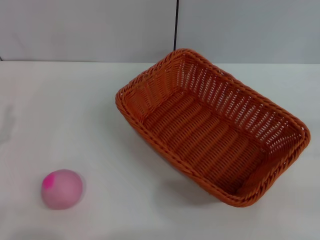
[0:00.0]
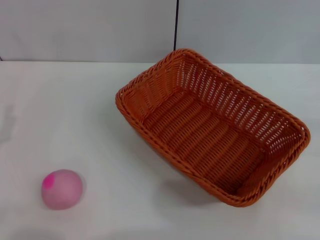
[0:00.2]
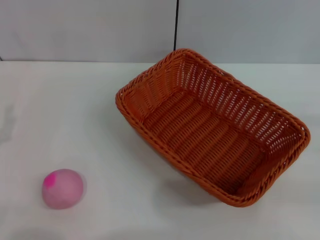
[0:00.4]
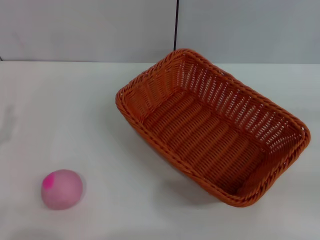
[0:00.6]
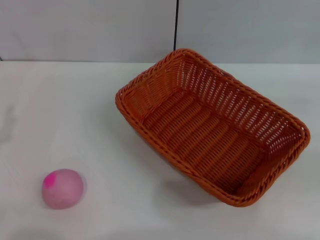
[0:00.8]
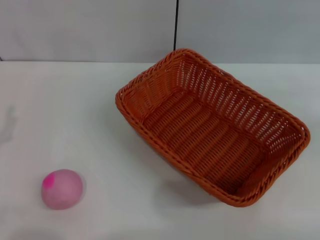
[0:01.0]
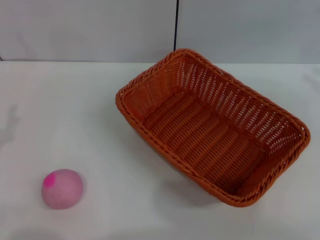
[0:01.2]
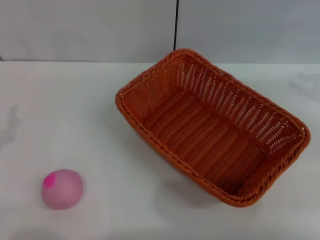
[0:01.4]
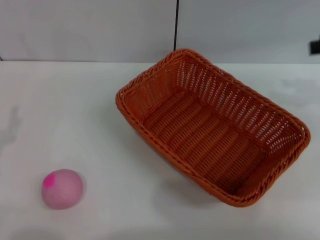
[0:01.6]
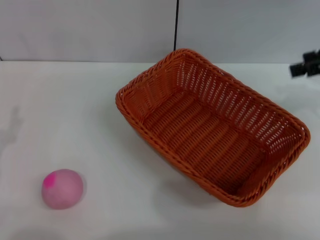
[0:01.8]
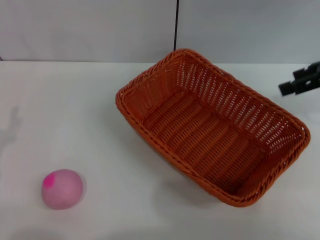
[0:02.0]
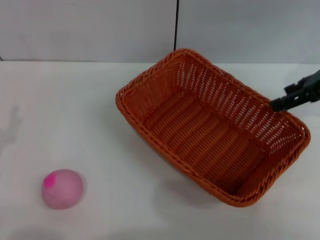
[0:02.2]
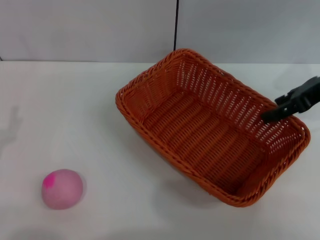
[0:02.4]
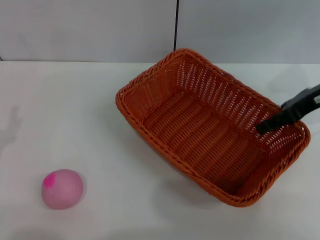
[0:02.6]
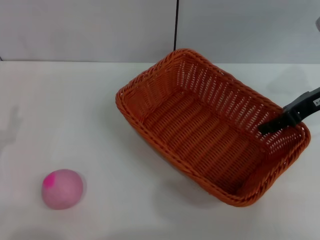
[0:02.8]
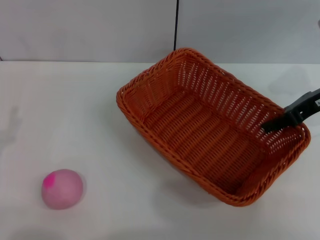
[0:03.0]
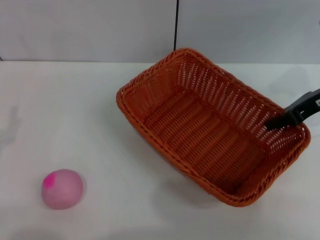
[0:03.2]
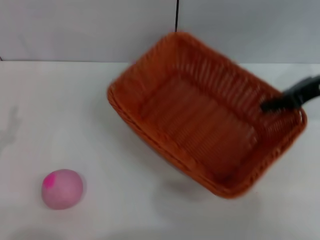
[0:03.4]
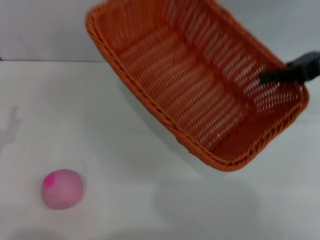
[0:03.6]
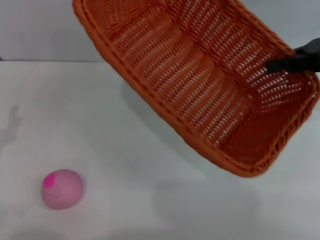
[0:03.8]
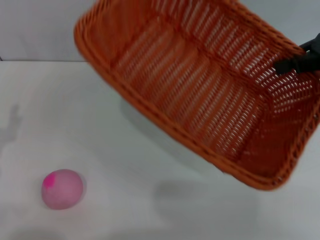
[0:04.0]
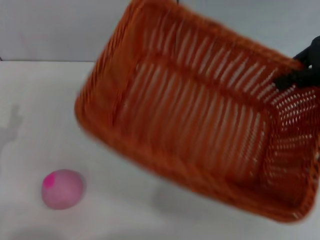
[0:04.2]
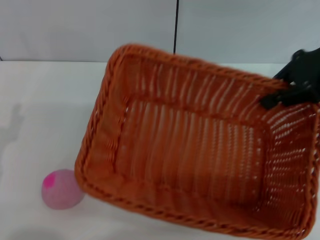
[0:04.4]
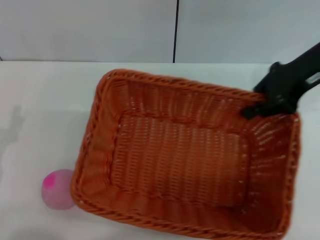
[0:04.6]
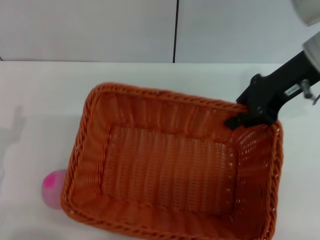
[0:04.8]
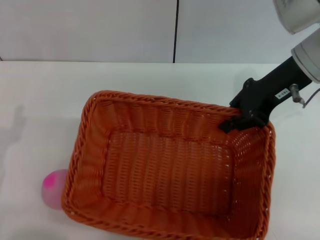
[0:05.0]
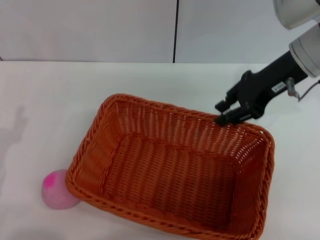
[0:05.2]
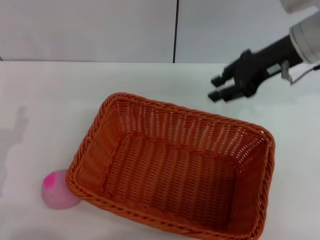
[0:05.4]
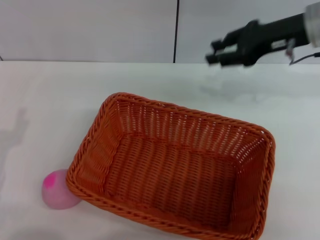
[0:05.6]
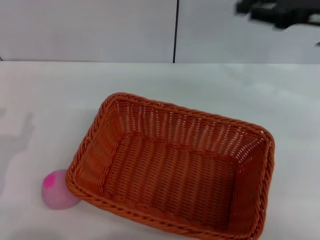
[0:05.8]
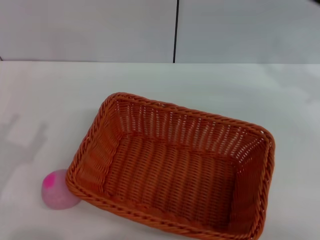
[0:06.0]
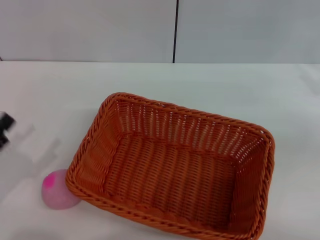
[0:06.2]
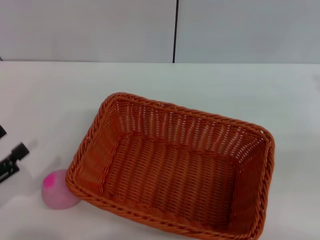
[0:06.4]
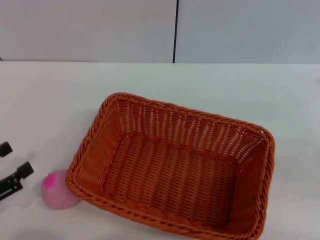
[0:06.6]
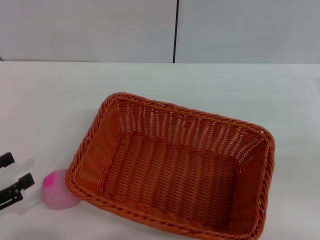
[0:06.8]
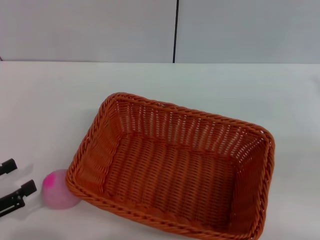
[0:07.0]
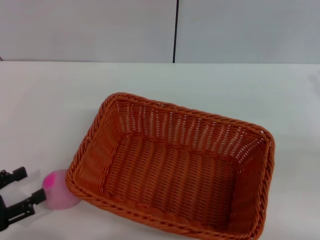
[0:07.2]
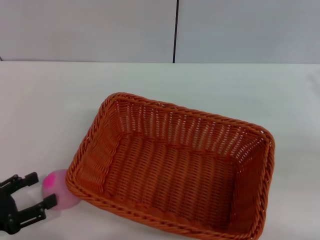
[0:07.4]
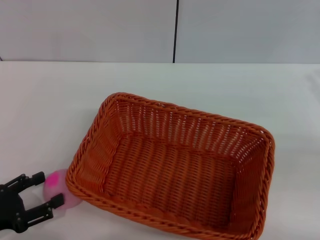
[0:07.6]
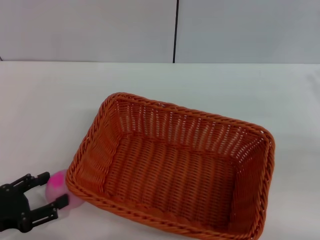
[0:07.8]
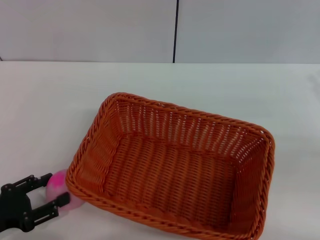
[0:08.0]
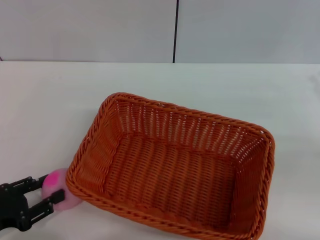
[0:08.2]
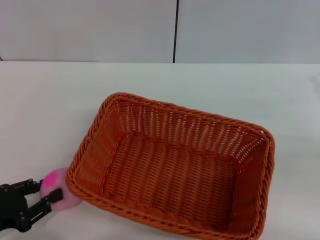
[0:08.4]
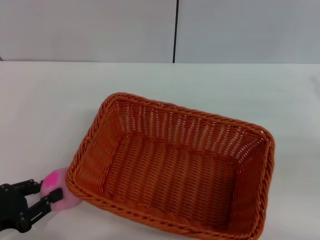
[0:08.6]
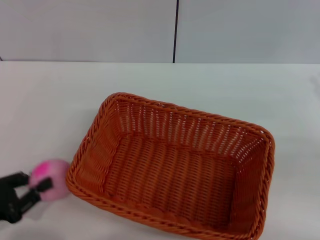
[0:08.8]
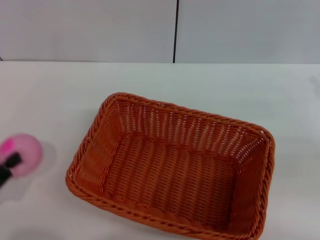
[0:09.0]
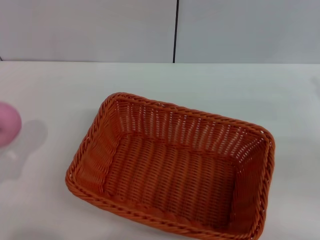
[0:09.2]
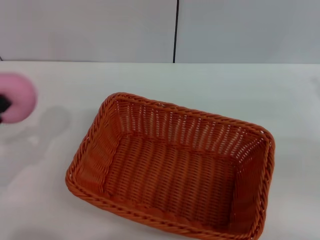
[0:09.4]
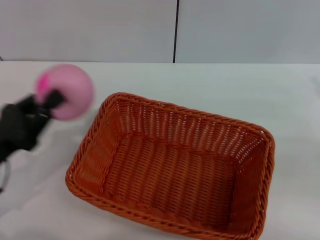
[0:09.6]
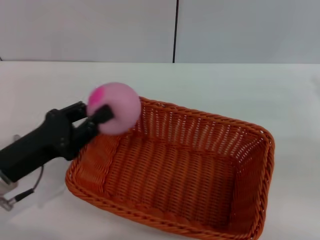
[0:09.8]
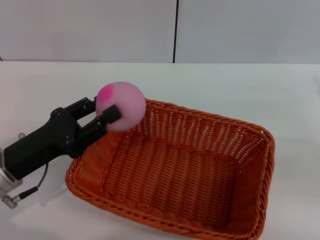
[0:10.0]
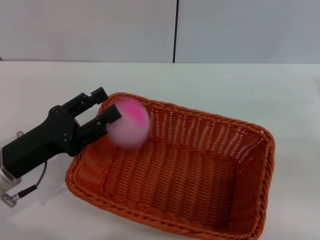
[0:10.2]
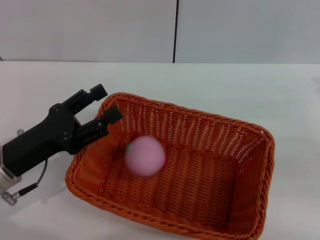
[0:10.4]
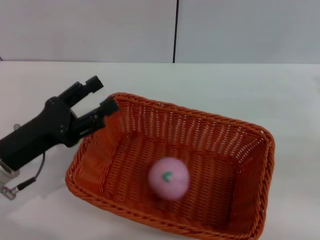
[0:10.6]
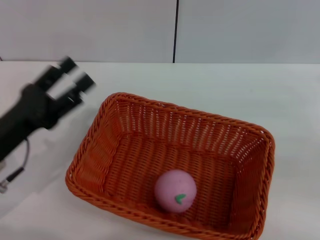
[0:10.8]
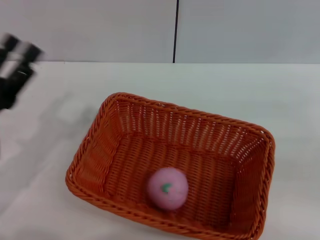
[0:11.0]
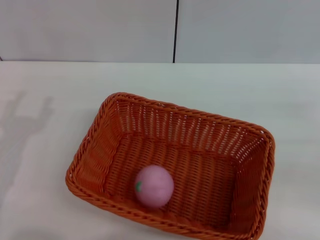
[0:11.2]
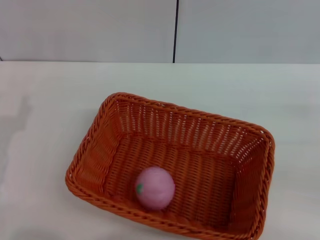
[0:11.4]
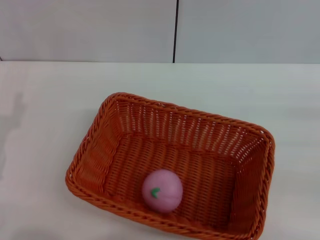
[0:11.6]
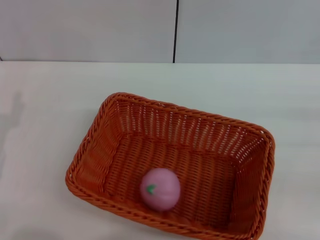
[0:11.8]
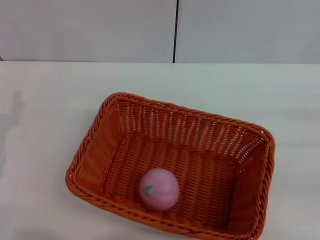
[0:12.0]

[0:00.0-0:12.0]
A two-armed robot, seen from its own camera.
Step, 0:00.0 to 0:04.0: Pick up the light basket with the right gripper.
Step, 0:04.2 to 0:05.2: Place the light basket in the center of view with the right gripper.
Step, 0:05.4 to 0:09.4: Pick up the peach with the left gripper.
Step, 0:09.6 to 0:10.6: Place the peach into the basket with the left gripper.
0:00.0 to 0:01.6: The right gripper heads upward, forward and to the left, covering approximately 25 cm.
0:01.6 to 0:03.0: The right gripper travels downward and to the left by some 10 cm.
0:03.0 to 0:04.4: The right gripper is displaced upward by roughly 10 cm, and closes.
0:04.4 to 0:06.0: The right gripper is displaced to the right and downward by roughly 10 cm, and opens.
0:07.6 to 0:09.0: The left gripper closes its fingers.
0:09.0 to 0:10.4: The left gripper moves to the right and forward, about 15 cm, and opens up.
0:10.4 to 0:12.0: The left gripper shifts about 5 cm to the left, and opens.

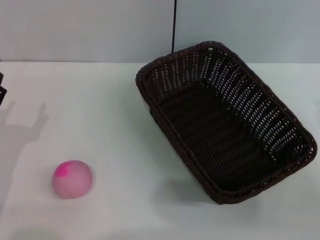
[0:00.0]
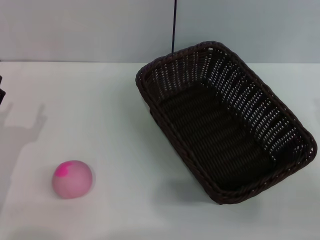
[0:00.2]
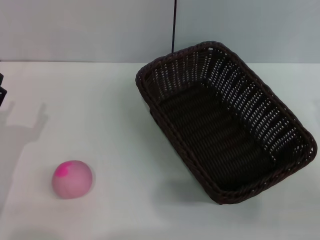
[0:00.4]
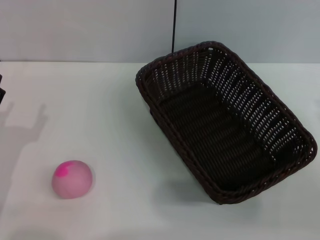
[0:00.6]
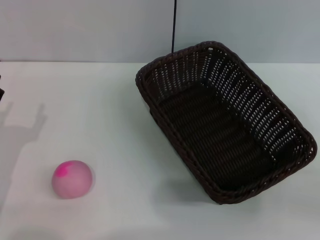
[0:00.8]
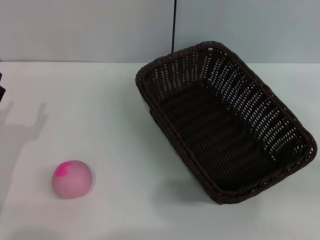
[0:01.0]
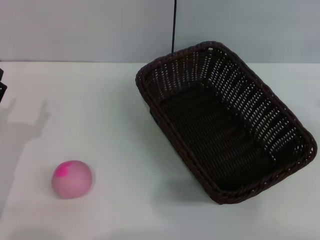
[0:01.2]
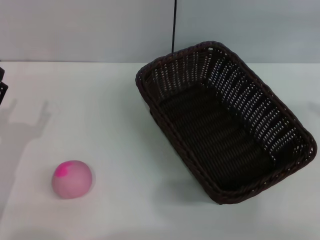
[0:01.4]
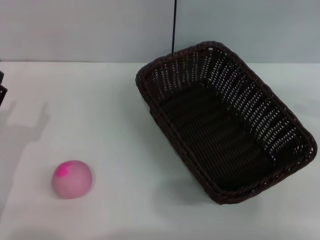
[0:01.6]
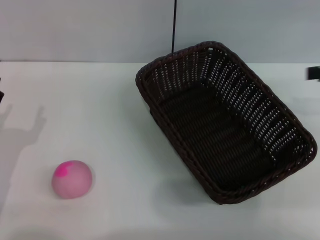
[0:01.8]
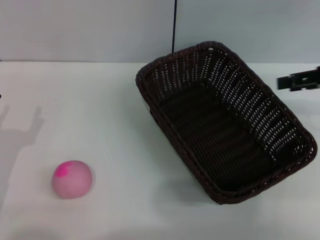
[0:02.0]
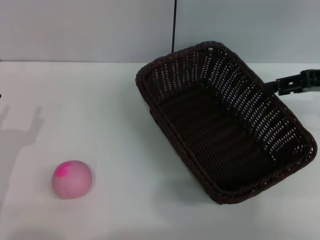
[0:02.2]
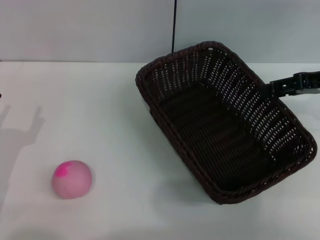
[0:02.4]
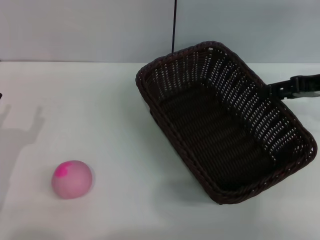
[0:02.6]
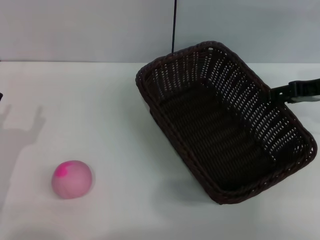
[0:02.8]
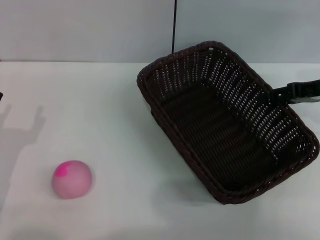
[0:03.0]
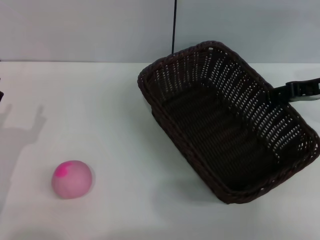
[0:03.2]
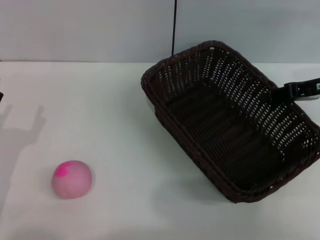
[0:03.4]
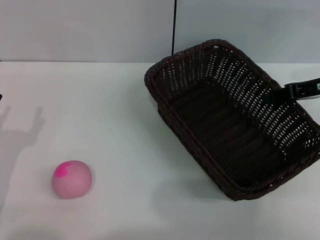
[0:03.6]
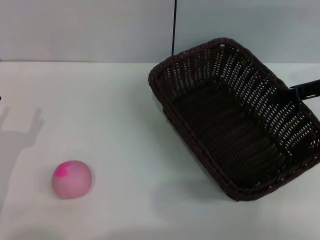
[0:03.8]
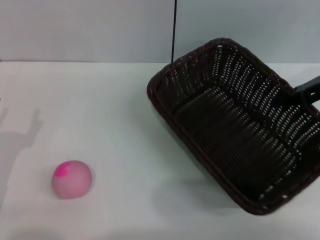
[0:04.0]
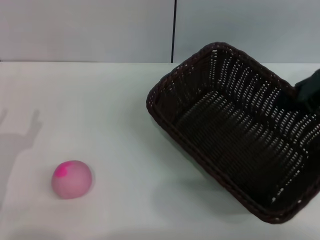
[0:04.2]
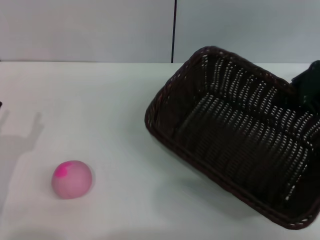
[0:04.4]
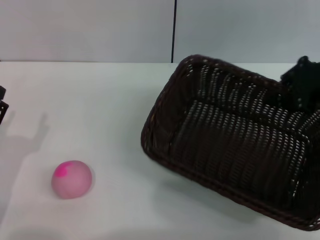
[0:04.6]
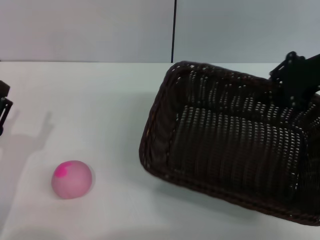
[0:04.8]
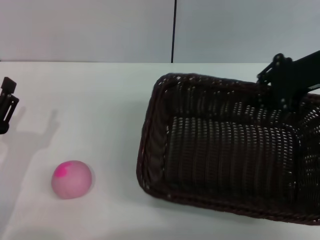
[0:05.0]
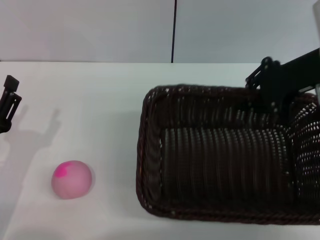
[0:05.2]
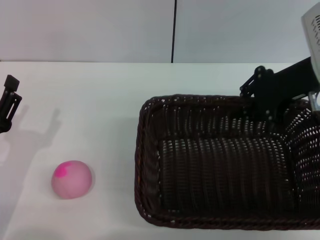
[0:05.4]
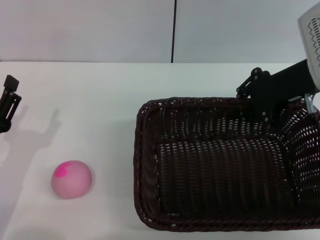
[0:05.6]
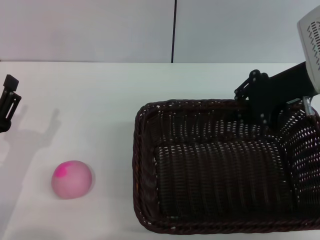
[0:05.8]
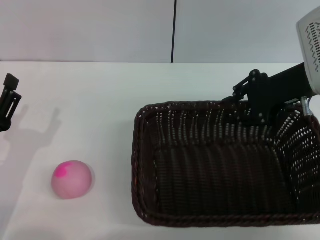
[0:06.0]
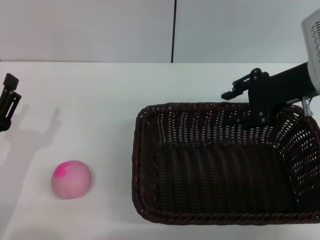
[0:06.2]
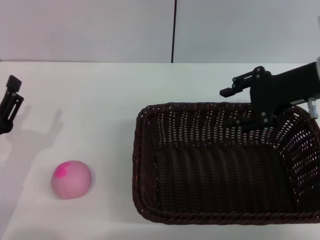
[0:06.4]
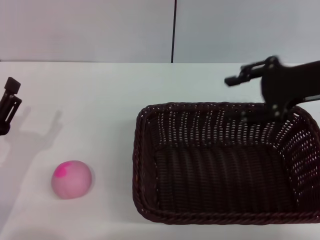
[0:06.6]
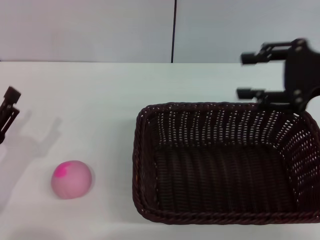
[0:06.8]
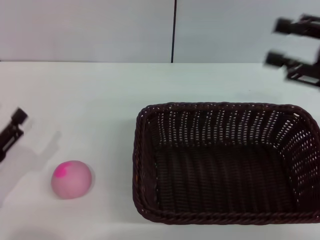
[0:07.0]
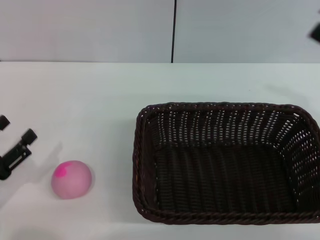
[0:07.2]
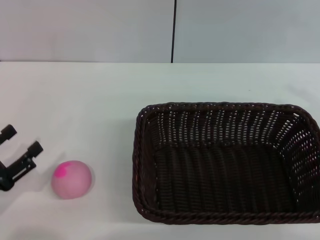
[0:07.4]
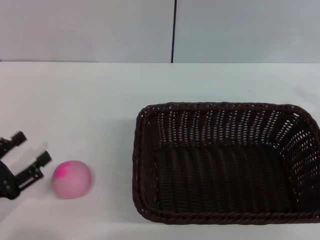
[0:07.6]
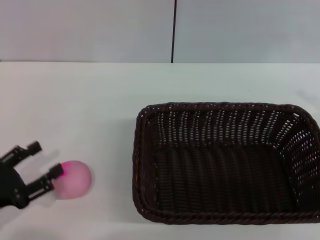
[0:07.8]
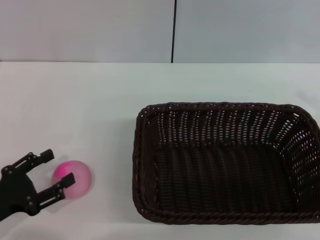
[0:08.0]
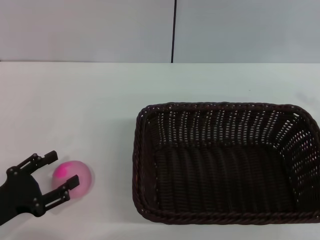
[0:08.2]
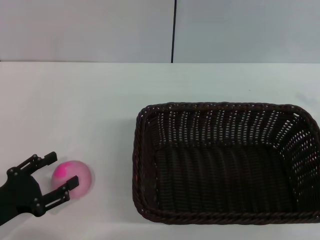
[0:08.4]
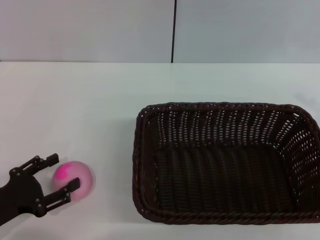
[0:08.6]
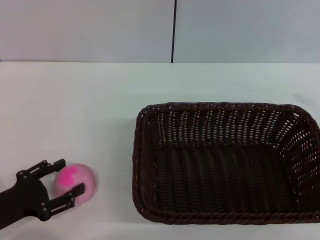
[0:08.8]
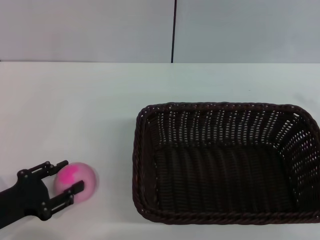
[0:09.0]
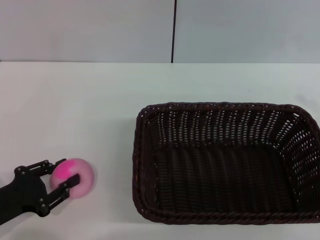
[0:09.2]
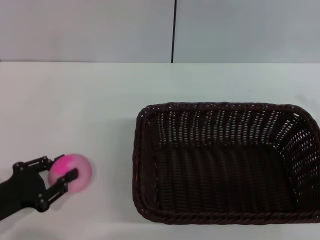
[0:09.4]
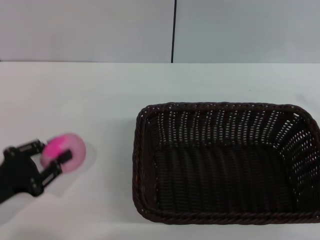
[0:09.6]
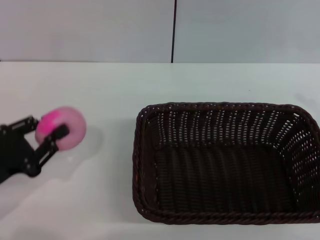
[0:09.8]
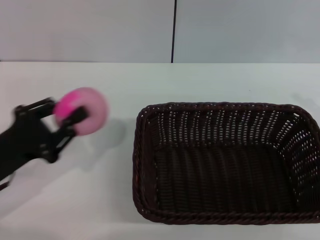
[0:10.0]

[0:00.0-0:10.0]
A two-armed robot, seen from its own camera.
Step, 0:00.0 to 0:03.8: Pick up the dark basket with the right gripper.
Step, 0:04.0 to 0:06.6: Place the dark basket in the center of view with the right gripper.
Step, 0:06.8 to 0:09.6: Pick up the peach with the left gripper.
0:01.4 to 0:02.8: The right gripper is displaced to the left, forward and downward by some 15 cm.
0:02.8 to 0:04.2: The right gripper changes place by roughly 5 cm, and closes.
0:04.2 to 0:05.8: The right gripper moves to the left, some 5 cm.
0:05.8 to 0:07.2: The right gripper moves to the right and backward, approximately 15 cm, and opens its fingers, while the left gripper heads to the left, covering about 5 cm.
0:08.6 to 0:10.0: The left gripper changes place by roughly 5 cm, and closes its fingers.
